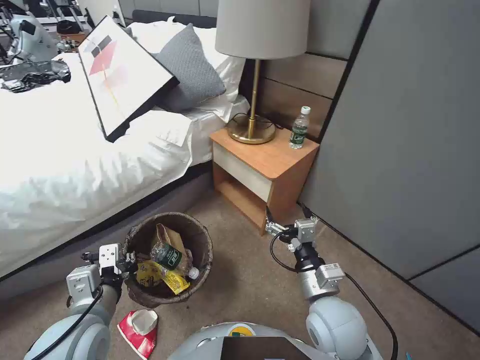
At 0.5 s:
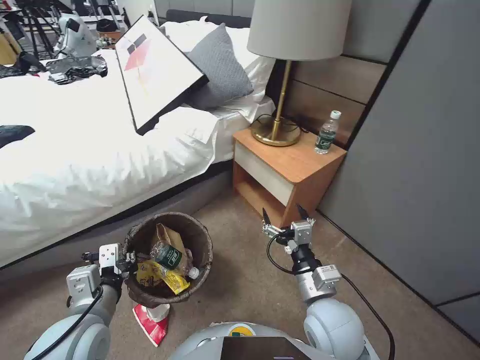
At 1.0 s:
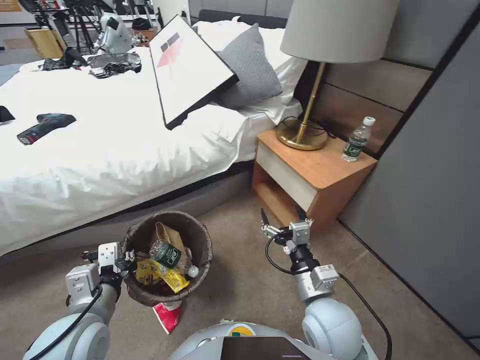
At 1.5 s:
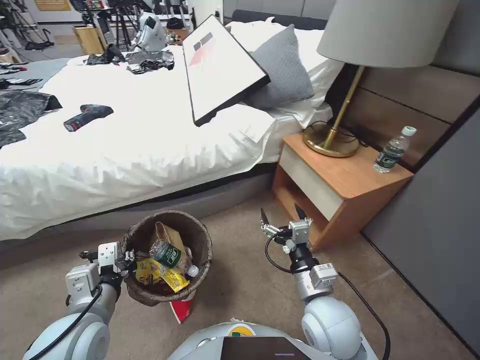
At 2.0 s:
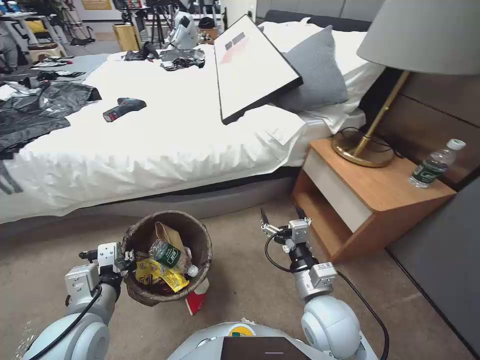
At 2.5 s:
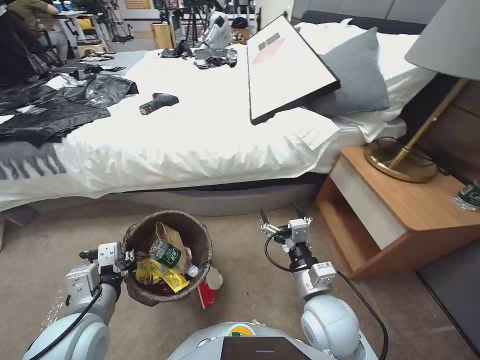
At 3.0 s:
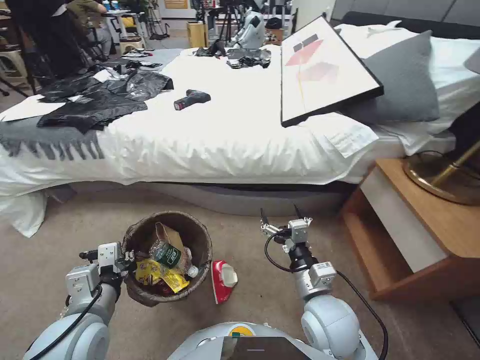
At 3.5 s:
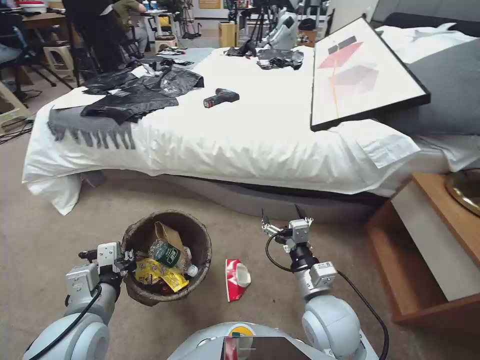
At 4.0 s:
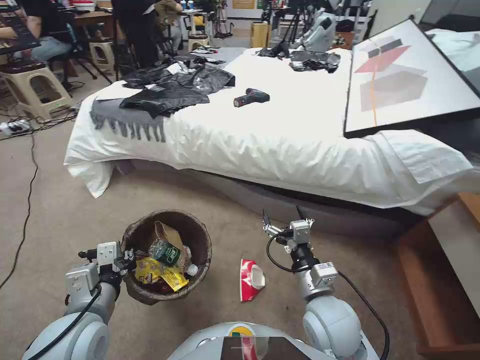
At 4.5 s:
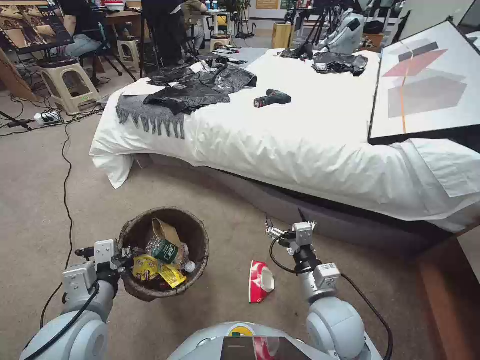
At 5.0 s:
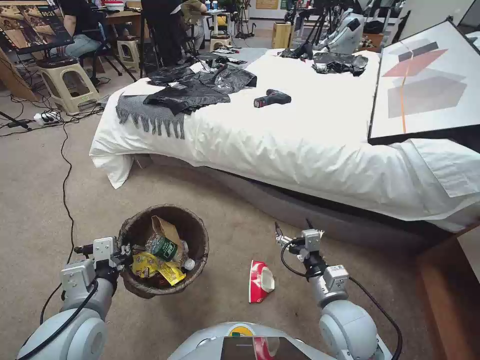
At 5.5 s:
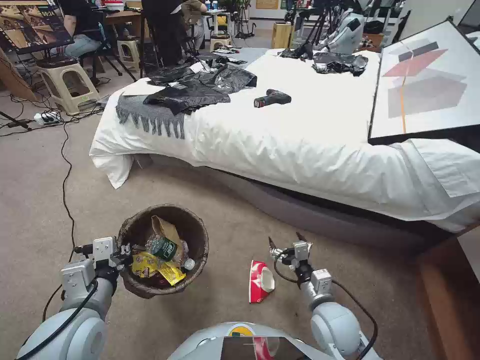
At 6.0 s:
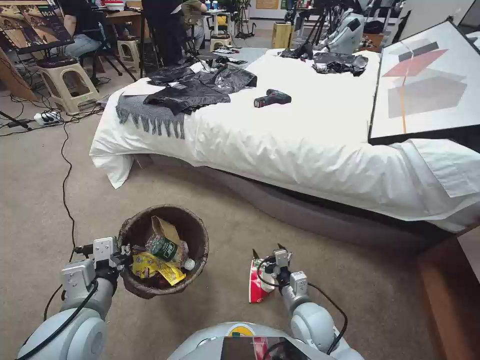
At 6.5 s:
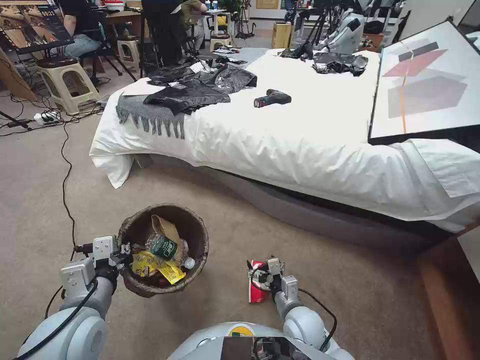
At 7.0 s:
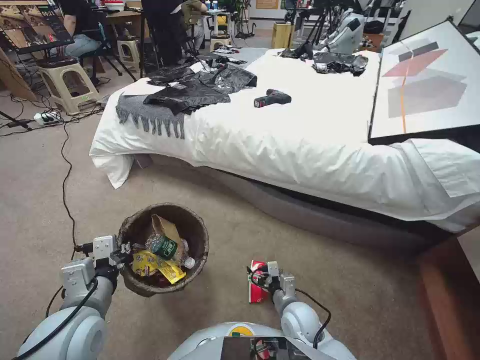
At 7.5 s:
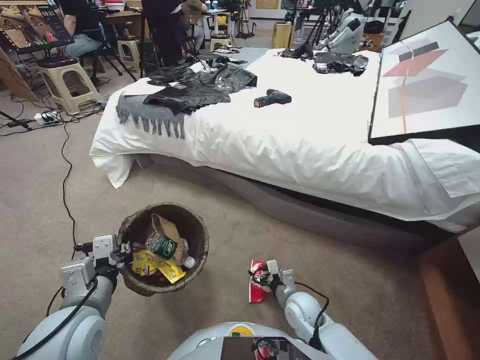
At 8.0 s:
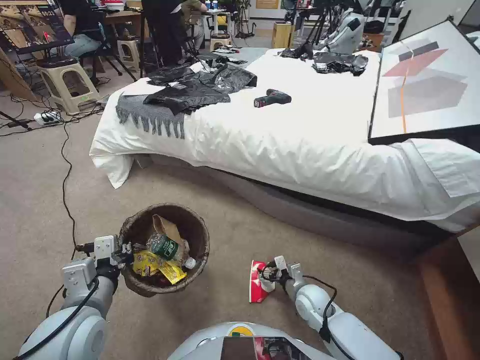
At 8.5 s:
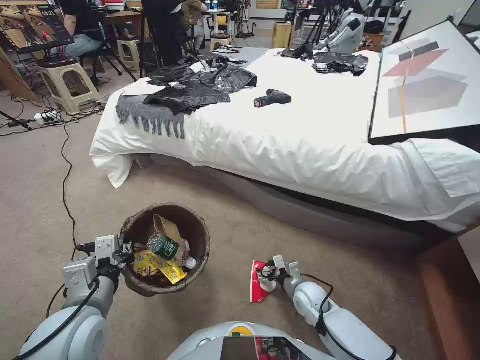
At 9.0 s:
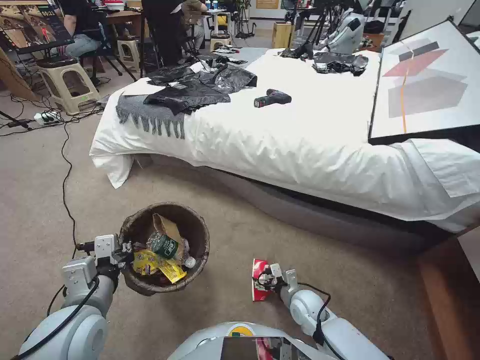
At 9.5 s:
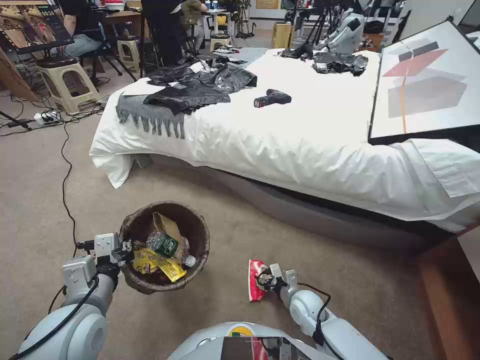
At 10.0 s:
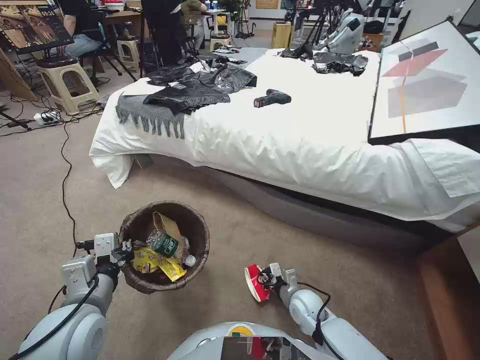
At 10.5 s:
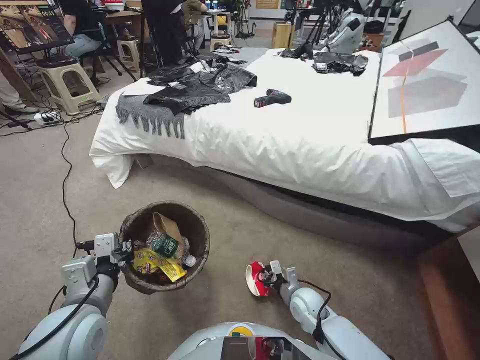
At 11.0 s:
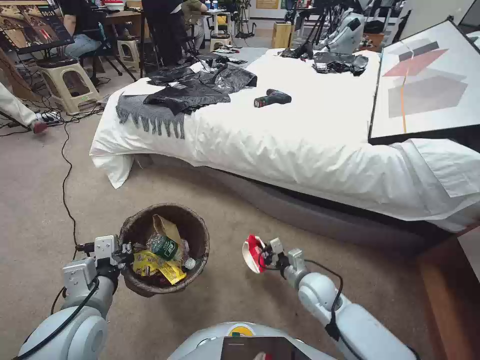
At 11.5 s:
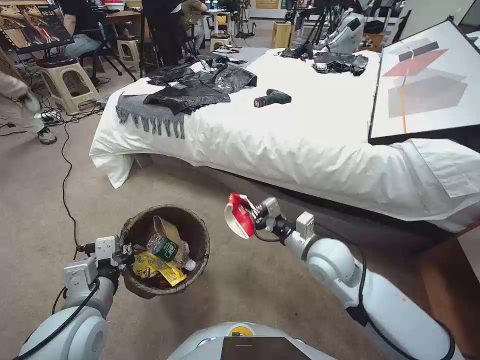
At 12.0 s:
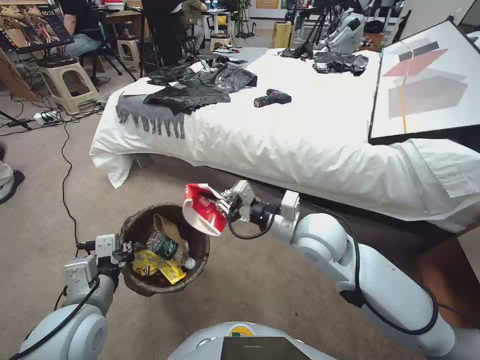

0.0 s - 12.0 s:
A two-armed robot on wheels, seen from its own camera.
Task of the whole recording: Pick up the trash bin, then pick up the garbage from the floor and place it into the trash bin.
4.0 s - 6.0 s: The right gripper travels downward by about 15 cm.
6.0 s - 8.0 s: The right gripper goes some 10 cm downward and forward.
8.0 s - 10.0 s: The right gripper closes up.
10.0 s - 12.0 s: The right gripper moves upward, about 35 cm.

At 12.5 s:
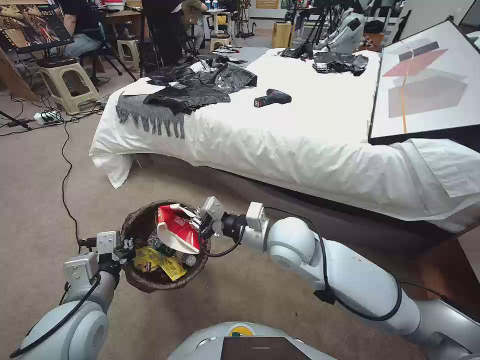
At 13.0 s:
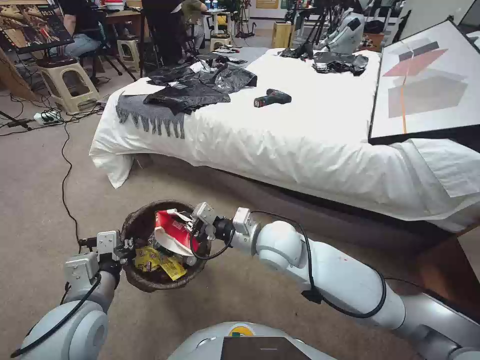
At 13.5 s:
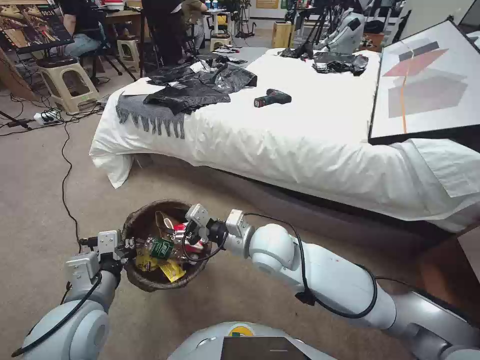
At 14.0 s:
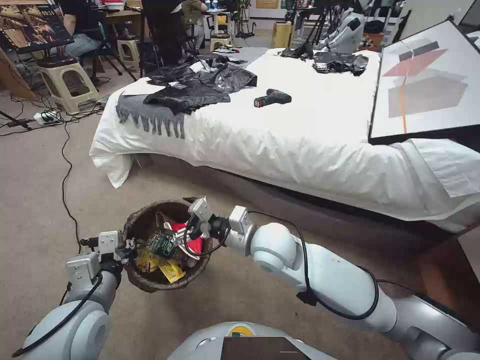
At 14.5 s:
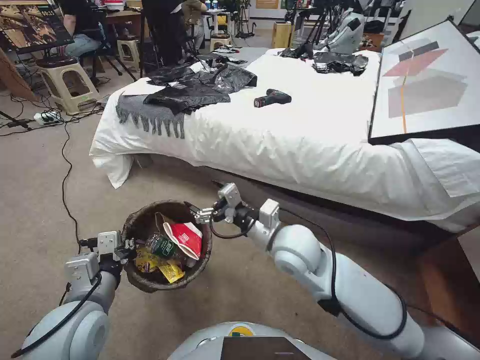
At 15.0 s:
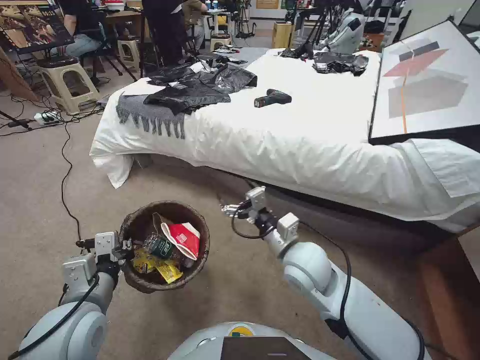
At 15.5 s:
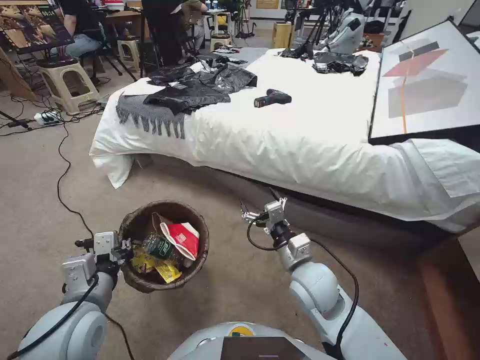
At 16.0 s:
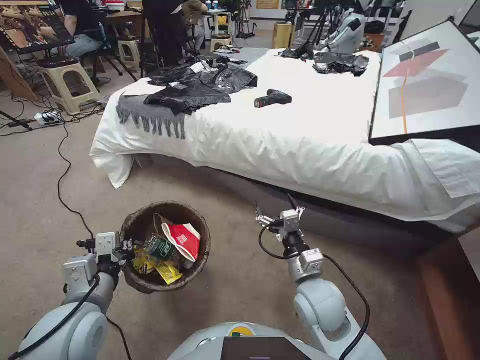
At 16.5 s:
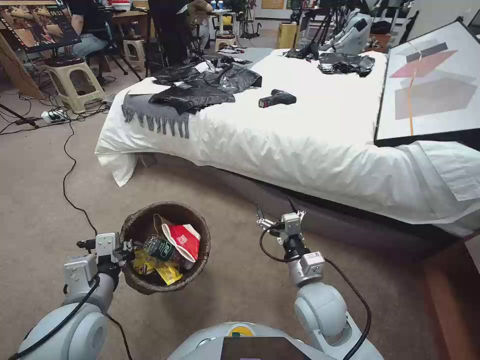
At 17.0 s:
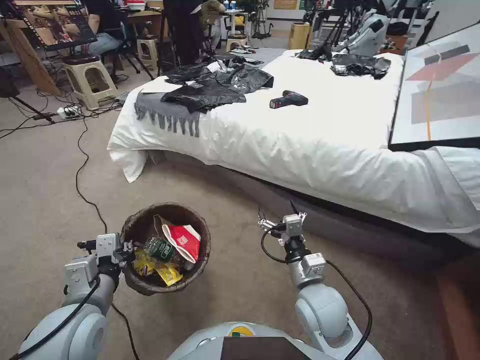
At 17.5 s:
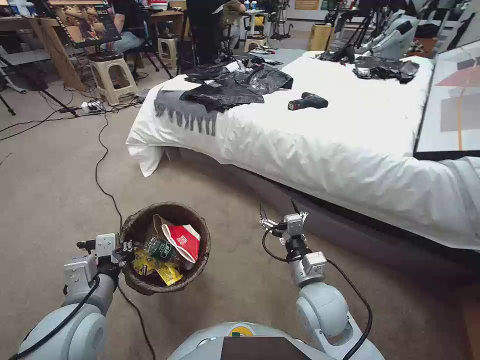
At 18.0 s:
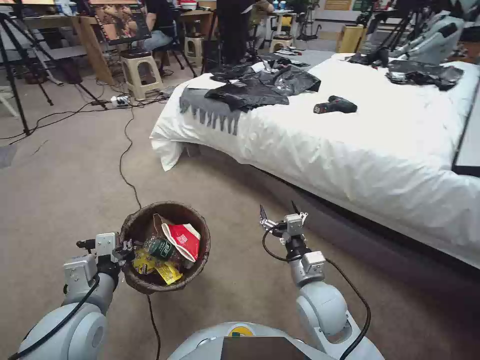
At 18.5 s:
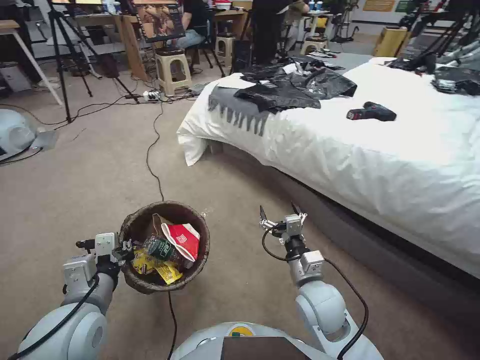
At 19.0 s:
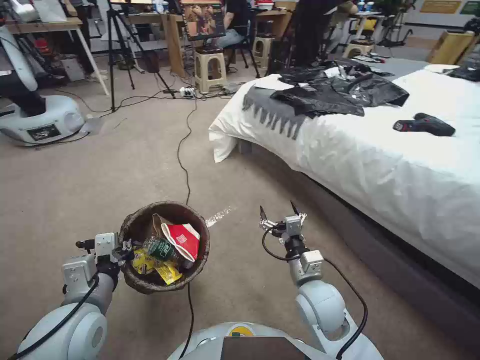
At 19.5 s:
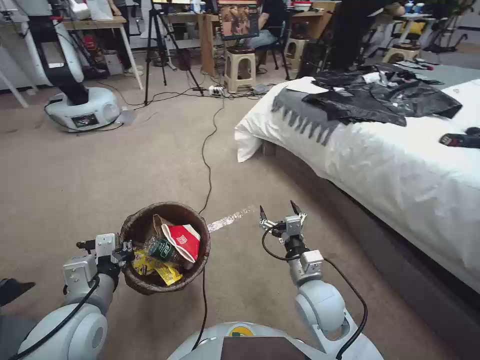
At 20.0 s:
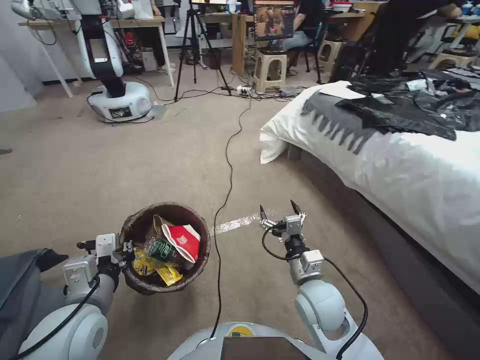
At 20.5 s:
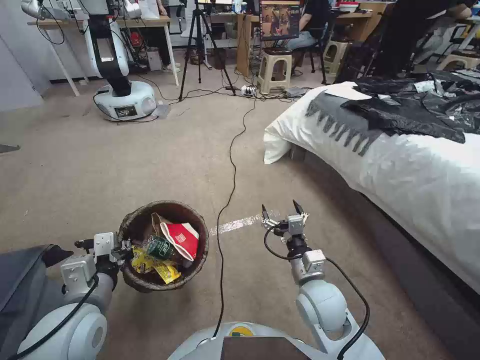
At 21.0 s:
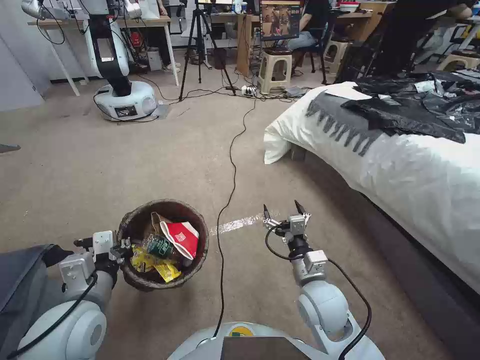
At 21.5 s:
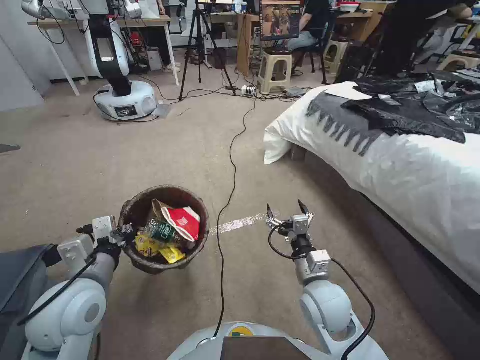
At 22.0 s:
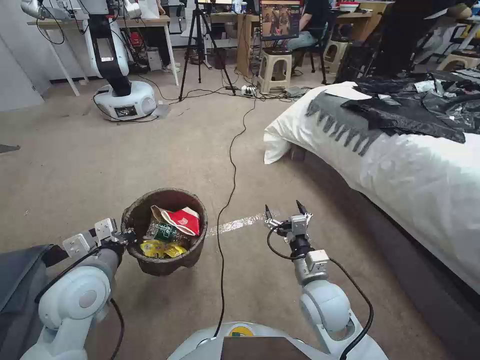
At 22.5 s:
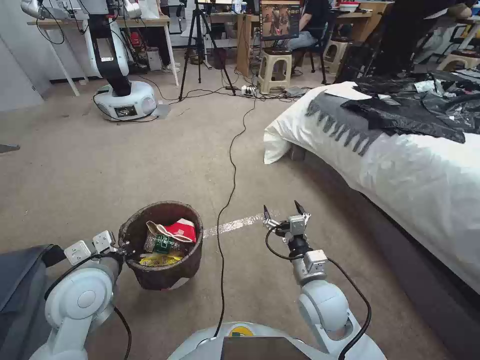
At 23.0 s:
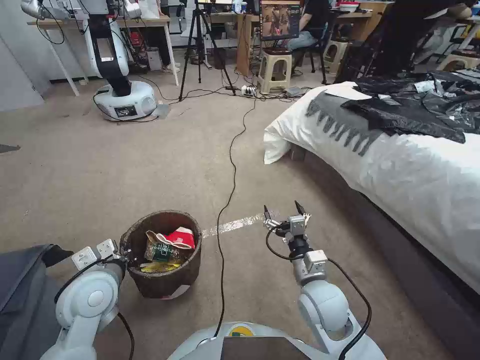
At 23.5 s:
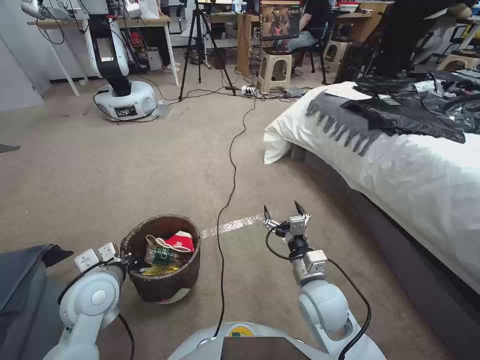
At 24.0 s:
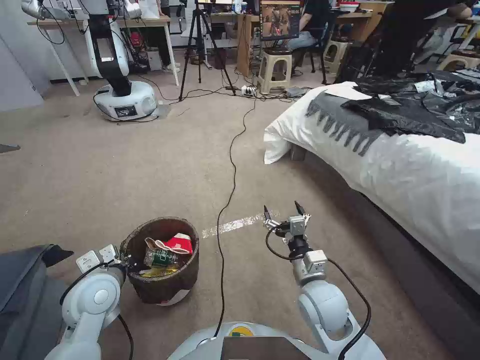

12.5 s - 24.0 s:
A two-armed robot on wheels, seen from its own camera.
Task of the whole recording: Pick up the trash bin, then pick up the garbage from the floor and place it into the trash bin.
12.5 s - 14.5 s: The right gripper opens.
14.5 s - 16.5 s: The right gripper is displaced downward, backward and to the right by roughly 15 cm.
20.0 s - 22.0 s: The left gripper heads forward, covering some 5 cm.
22.0 s - 24.0 s: The left gripper is displaced downward by approximately 5 cm.

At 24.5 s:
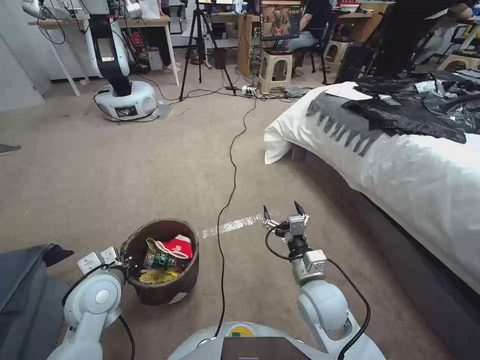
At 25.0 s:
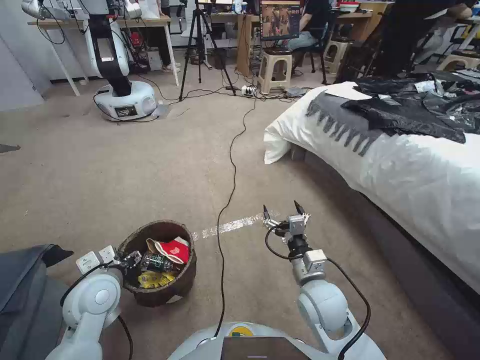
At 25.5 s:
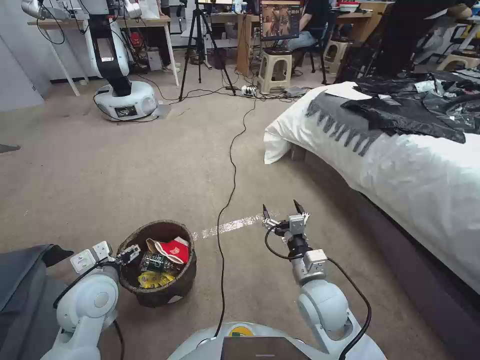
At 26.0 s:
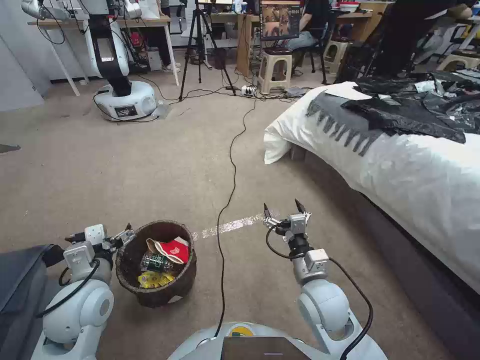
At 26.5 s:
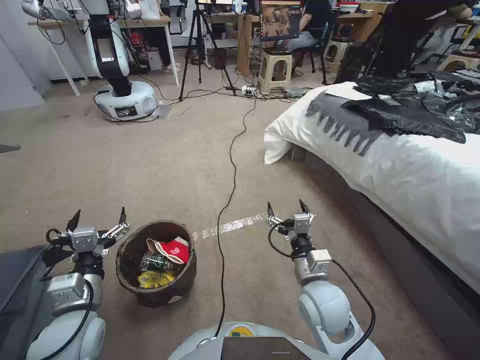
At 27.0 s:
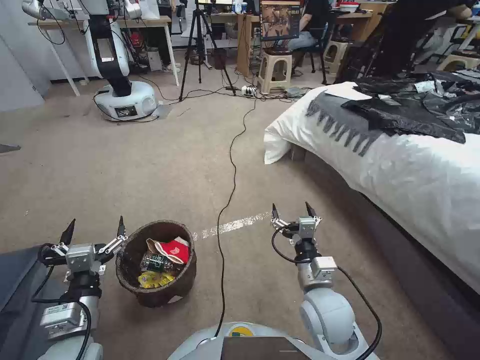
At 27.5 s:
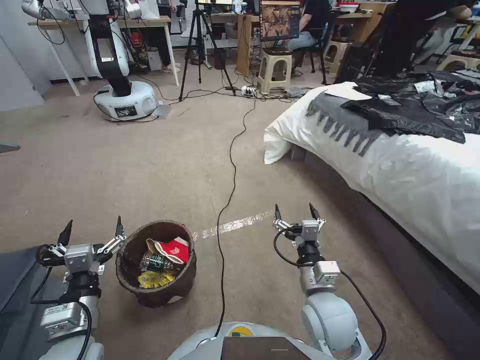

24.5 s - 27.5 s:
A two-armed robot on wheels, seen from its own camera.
Task of the whole recording: Pick up the trash bin, then pick up the garbage from the floor and place it into the trash bin.
24.5 s - 26.0 s: The left gripper opens up.
26.0 s - 27.5 s: The left gripper moves backward, approximately 10 cm.
